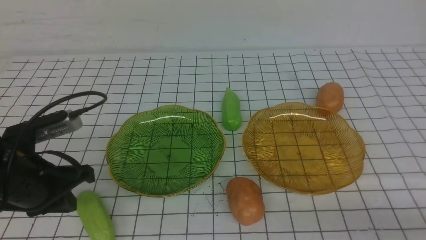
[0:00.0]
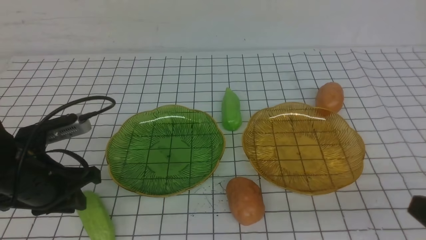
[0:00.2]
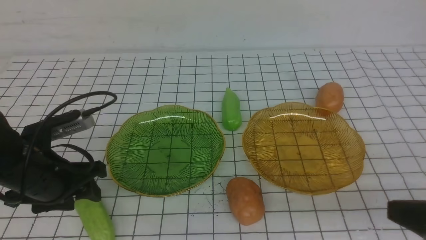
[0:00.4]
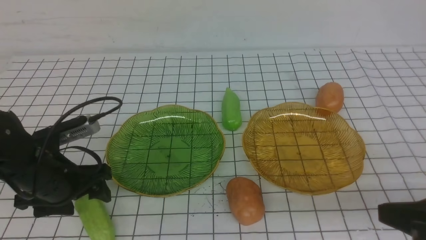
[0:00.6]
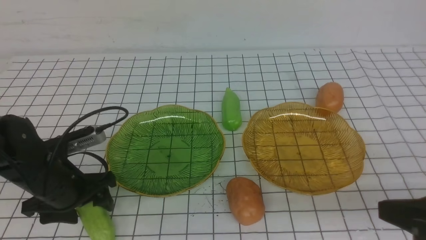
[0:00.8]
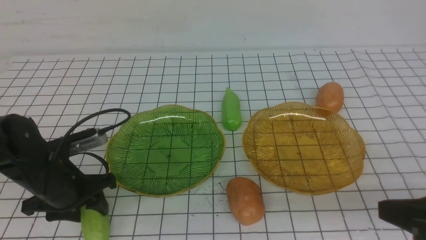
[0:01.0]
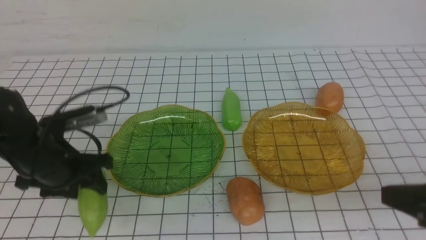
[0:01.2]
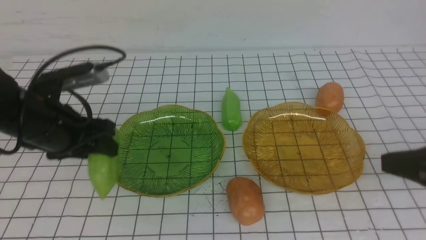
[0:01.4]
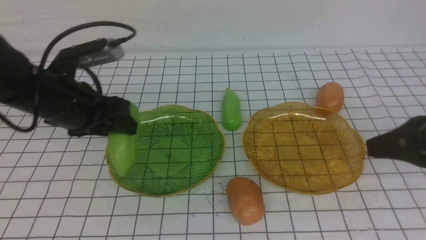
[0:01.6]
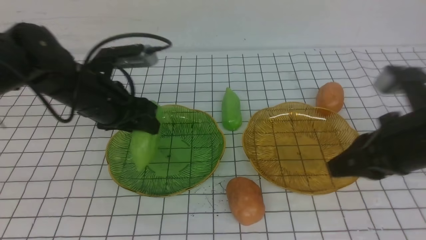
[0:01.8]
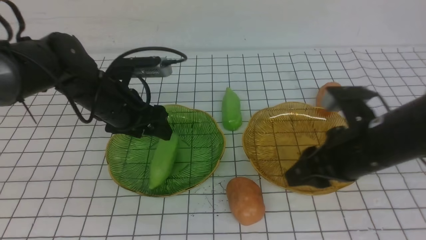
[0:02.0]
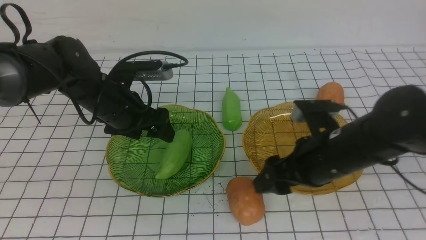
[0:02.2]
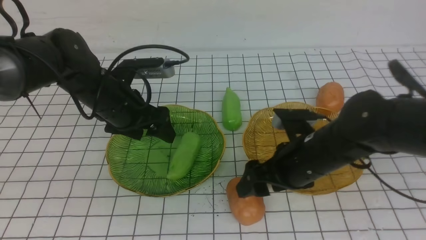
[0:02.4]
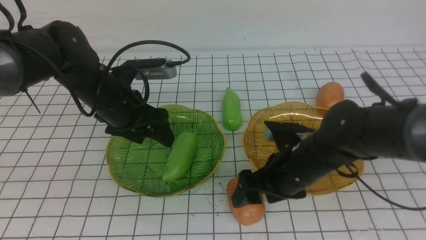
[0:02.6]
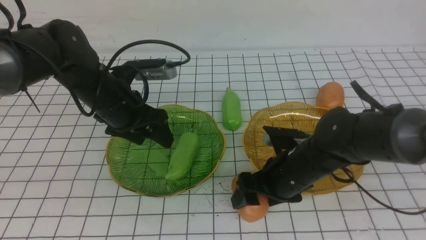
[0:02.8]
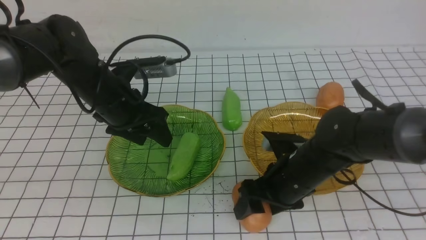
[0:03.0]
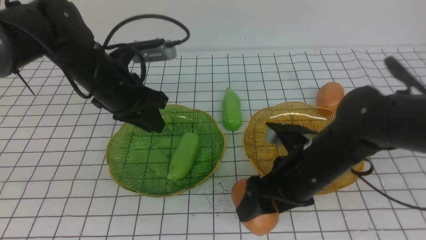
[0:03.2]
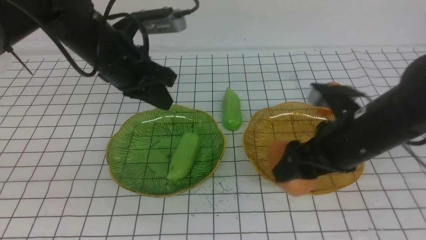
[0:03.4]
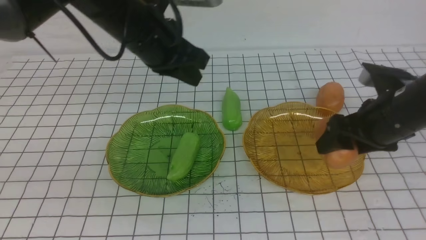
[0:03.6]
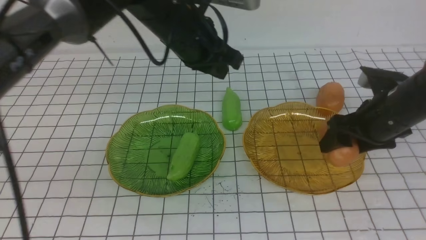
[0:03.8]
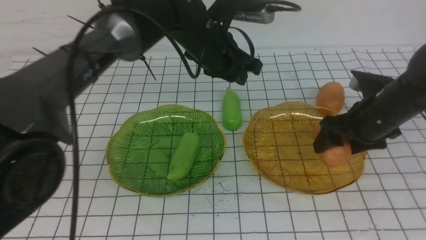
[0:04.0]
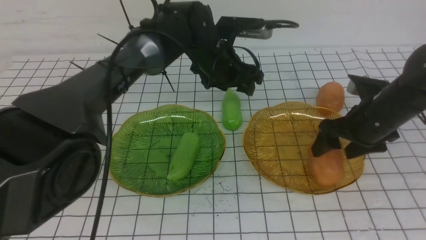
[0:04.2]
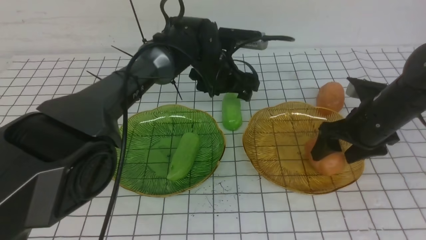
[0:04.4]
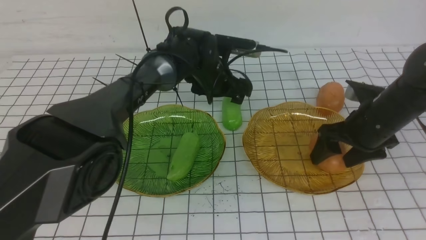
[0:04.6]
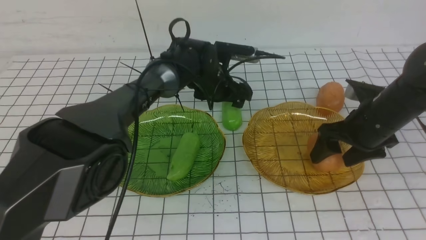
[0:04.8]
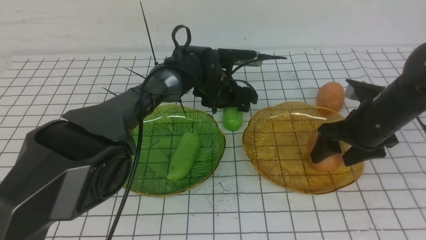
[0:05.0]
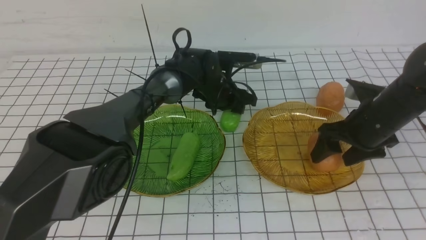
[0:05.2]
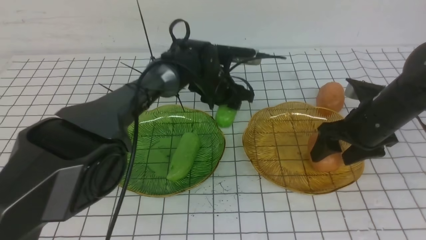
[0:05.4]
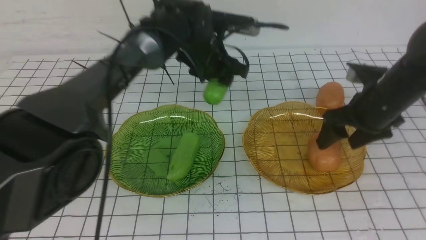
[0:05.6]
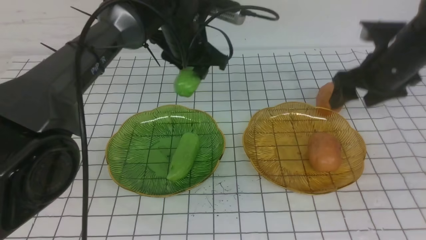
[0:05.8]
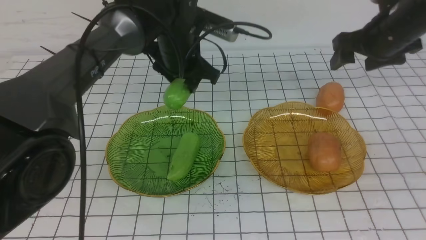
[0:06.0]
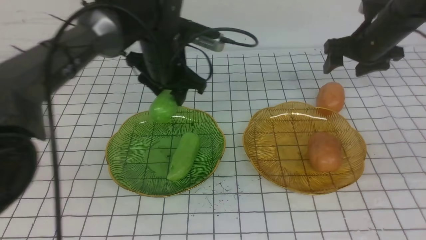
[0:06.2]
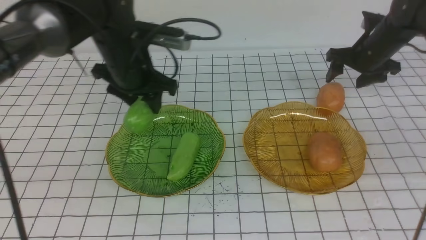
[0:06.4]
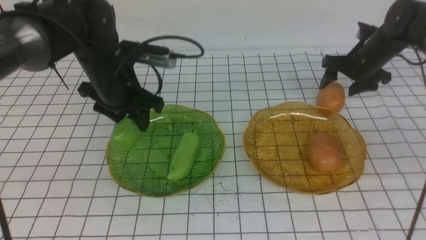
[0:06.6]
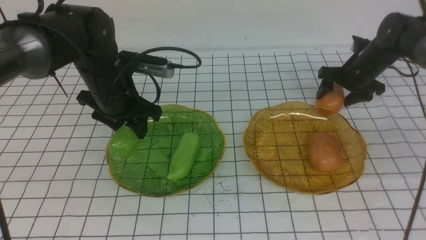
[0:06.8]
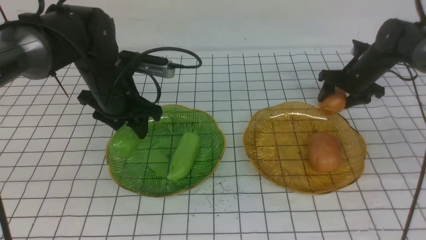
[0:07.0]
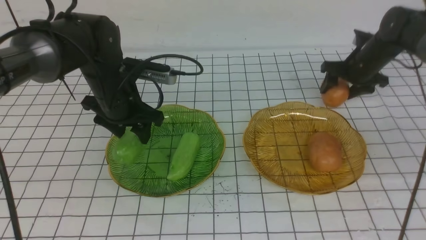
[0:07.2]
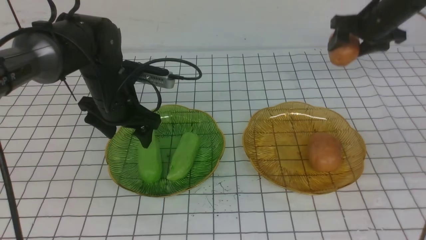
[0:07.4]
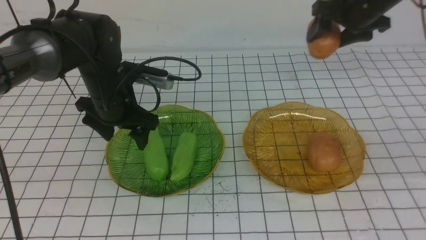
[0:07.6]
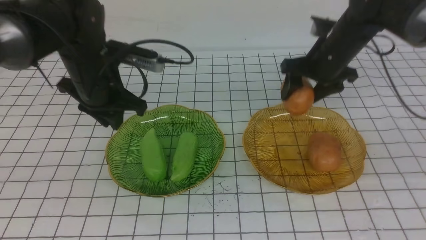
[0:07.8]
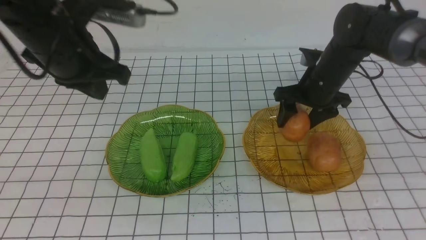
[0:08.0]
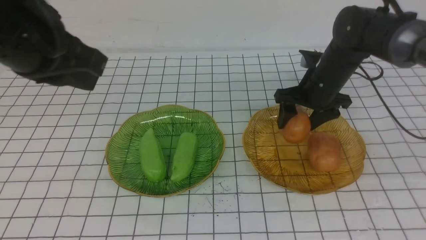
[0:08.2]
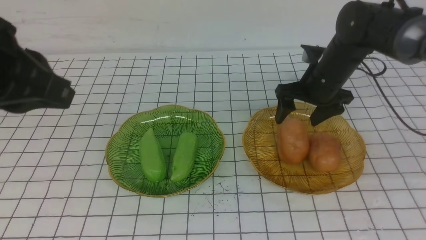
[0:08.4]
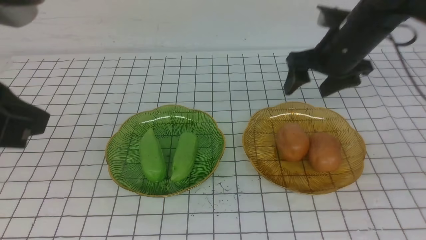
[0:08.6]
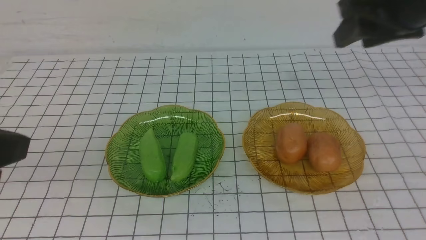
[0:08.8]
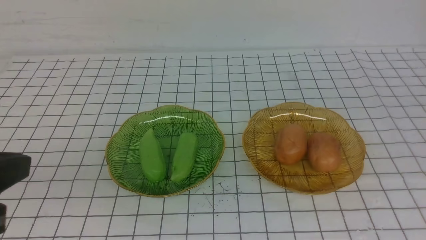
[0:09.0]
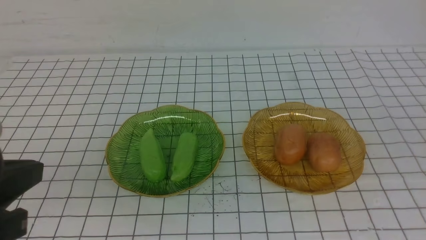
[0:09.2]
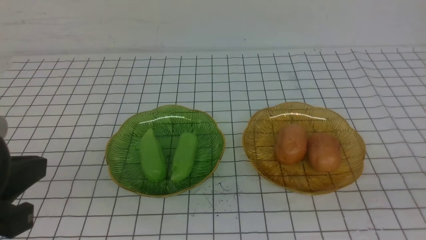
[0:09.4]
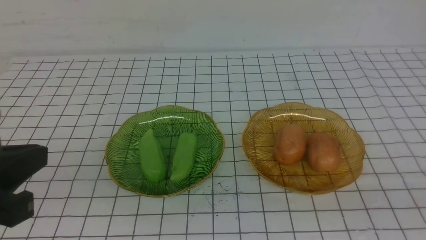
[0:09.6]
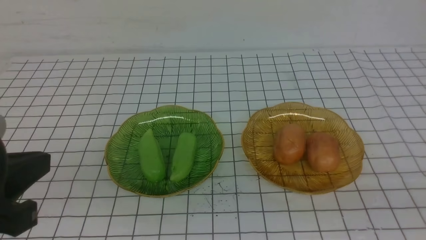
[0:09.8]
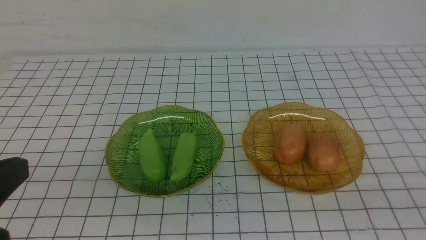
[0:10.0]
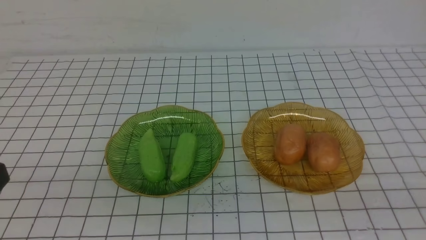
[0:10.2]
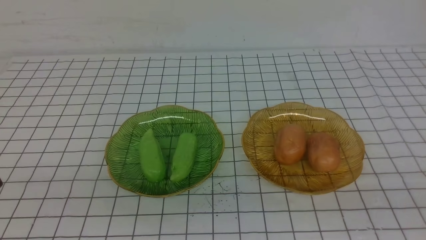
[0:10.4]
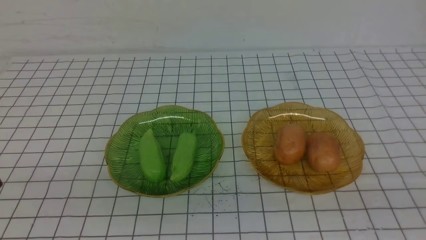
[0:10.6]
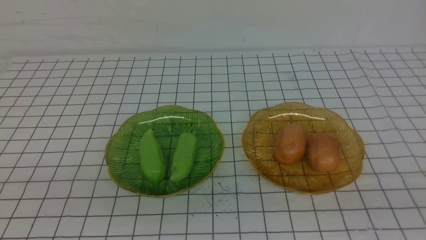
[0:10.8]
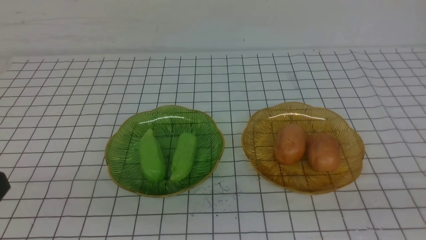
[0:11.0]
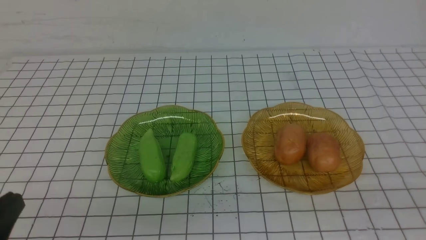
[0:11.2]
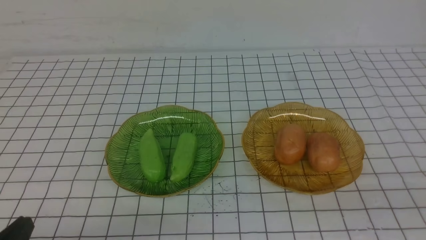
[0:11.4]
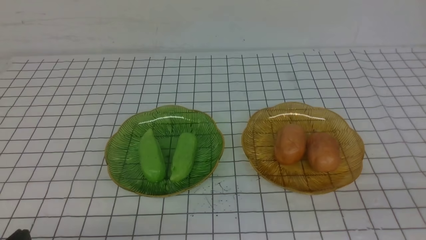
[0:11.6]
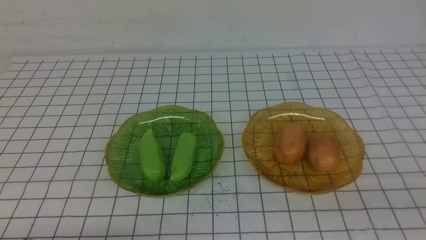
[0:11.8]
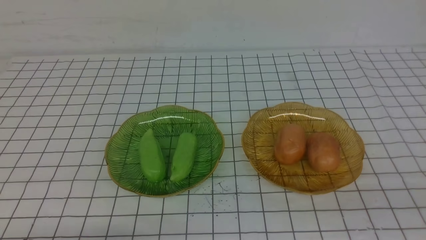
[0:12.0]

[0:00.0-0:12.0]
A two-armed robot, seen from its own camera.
Step, 0:02.0 to 0:04.6: Grab a potato with your right arm and put it on the right plate.
Step, 0:04.8 to 0:06.2: use the left arm to grab a chayote and put it into the left plate.
Step, 0:06.4 to 0:08.4: Grab a potato with your right arm and put it on the right plate.
0:00.0 to 0:01.6: The left gripper shifts roughly 10 cm forward, and opens. Meanwhile the right gripper goes roughly 15 cm forward and upward.
0:01.6 to 0:03.0: The left gripper changes place by about 5 cm, and opens and closes again. Meanwhile the right gripper heads downward, to the left and forward, covering roughly 20 cm, and opens.
0:03.0 to 0:04.4: Both grippers travel together to the right and forward, about 15 cm. The left gripper opens its fingers.
0:04.4 to 0:06.0: The left gripper is displaced upward and to the left by about 10 cm, and closes its fingers. Meanwhile the right gripper is displaced forward and upward by roughly 10 cm.
0:06.0 to 0:07.6: The left gripper moves to the left and backward, approximately 10 cm, while the right gripper goes downward and returns, roughly 10 cm each way.
0:07.6 to 0:09.0: Both grippers travel together backward and upward, approximately 30 cm. The left gripper closes up. The right gripper closes its fingers.
0:09.0 to 0:10.4: The right gripper shifts approximately 20 cm backward and downward. The left gripper is displaced backward by roughly 5 cm.

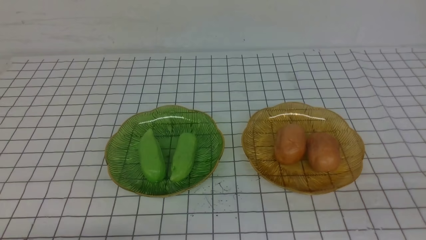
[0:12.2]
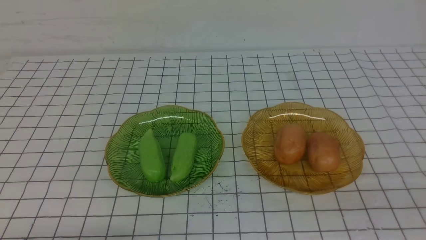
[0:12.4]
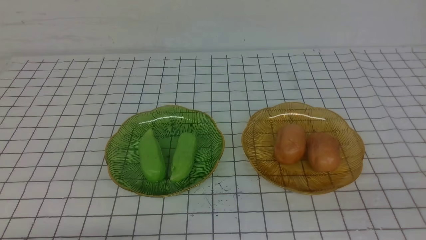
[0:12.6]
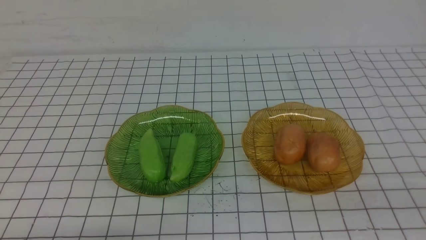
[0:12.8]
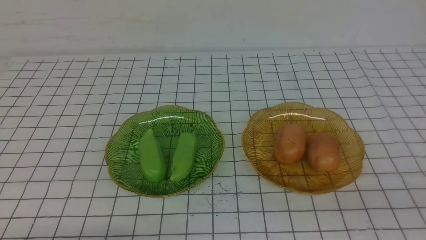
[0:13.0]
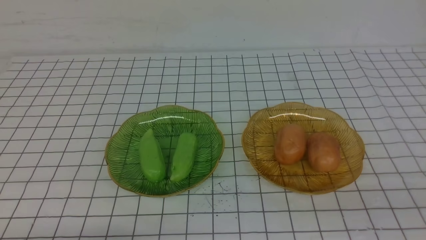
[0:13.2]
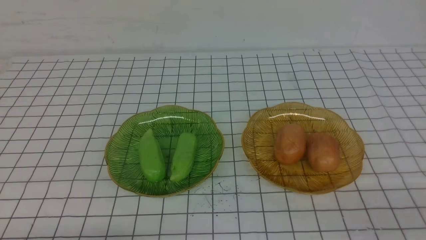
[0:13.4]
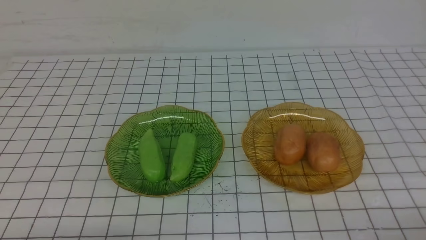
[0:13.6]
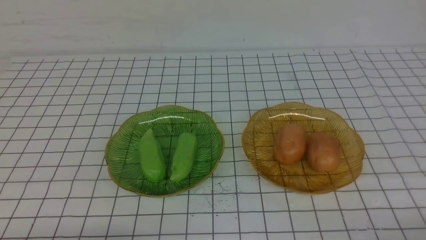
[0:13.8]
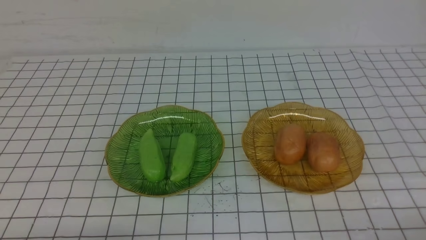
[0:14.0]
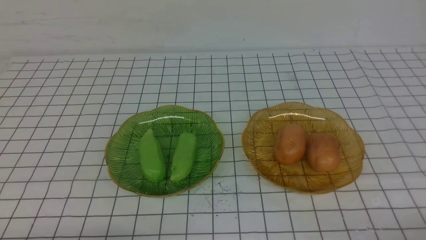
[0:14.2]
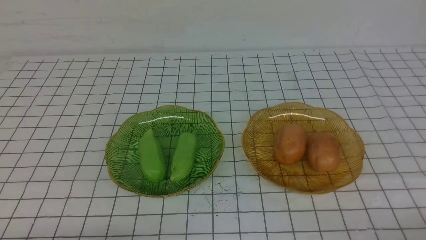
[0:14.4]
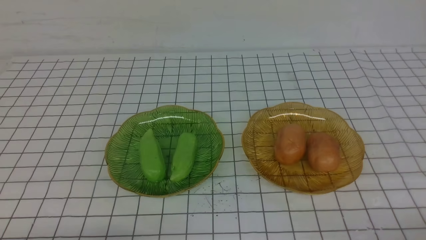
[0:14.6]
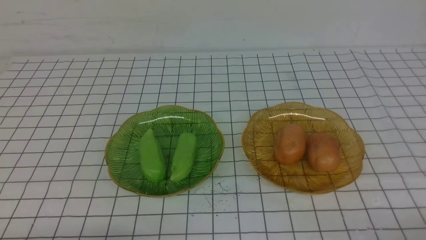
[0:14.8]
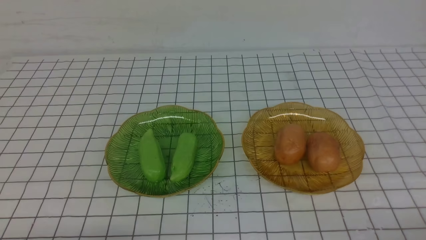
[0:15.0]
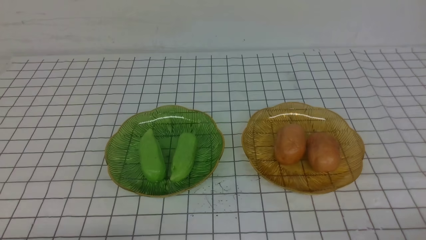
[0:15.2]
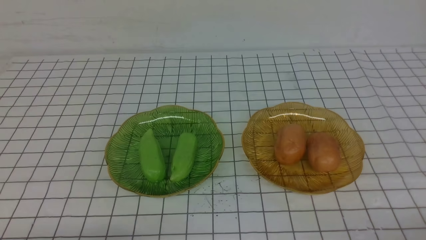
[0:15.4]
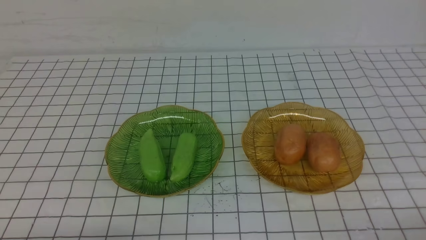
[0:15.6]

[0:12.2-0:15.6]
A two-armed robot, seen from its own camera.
0:13.8 to 0:15.6: Both grippers stay put.
